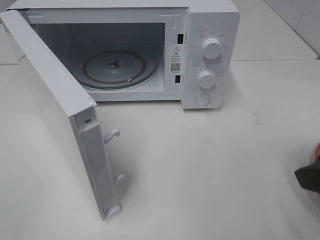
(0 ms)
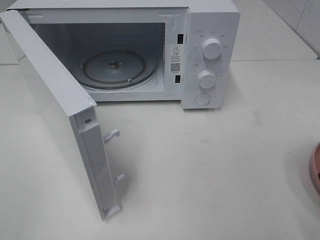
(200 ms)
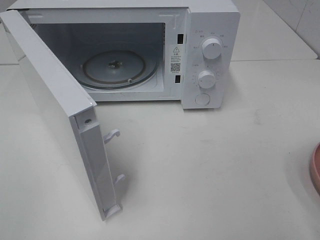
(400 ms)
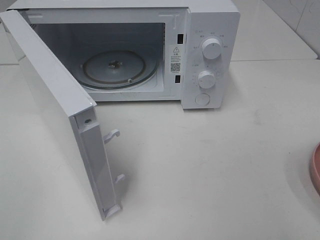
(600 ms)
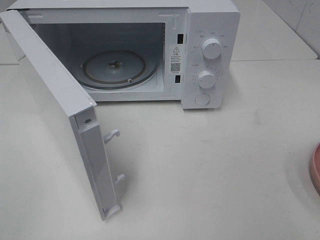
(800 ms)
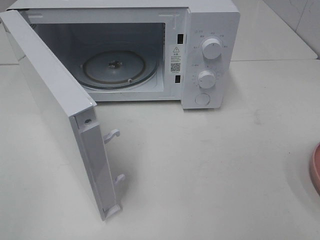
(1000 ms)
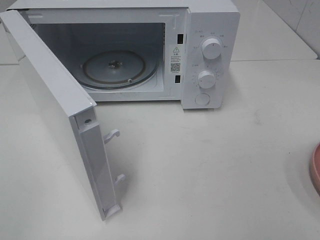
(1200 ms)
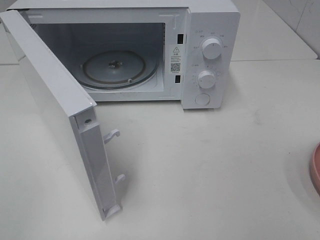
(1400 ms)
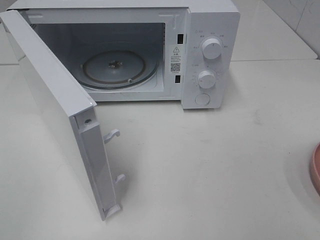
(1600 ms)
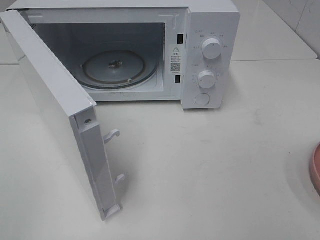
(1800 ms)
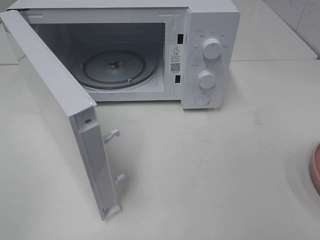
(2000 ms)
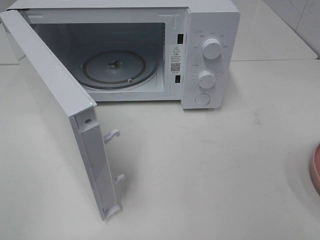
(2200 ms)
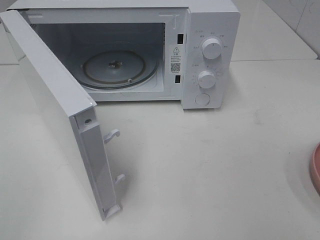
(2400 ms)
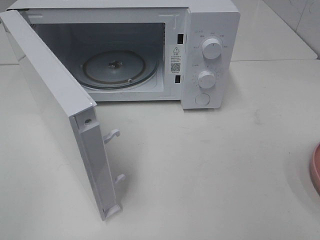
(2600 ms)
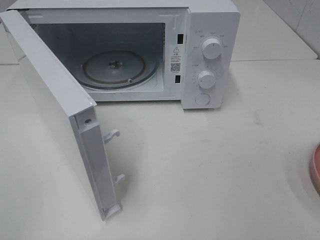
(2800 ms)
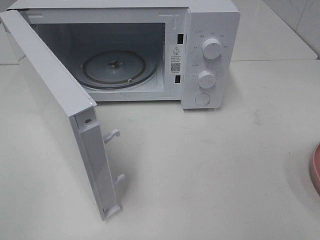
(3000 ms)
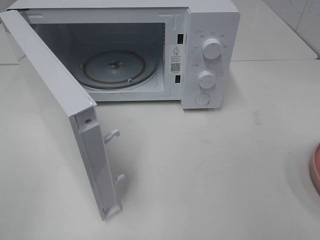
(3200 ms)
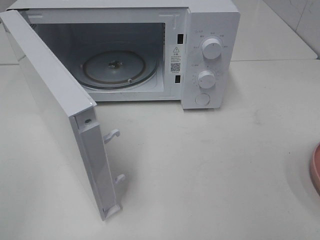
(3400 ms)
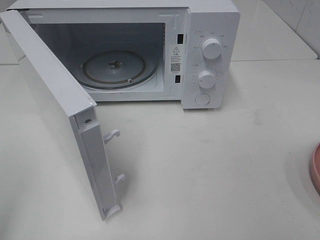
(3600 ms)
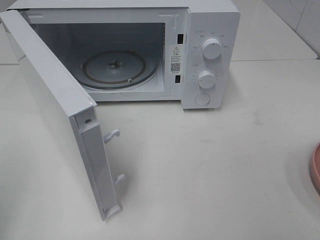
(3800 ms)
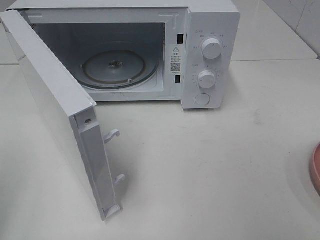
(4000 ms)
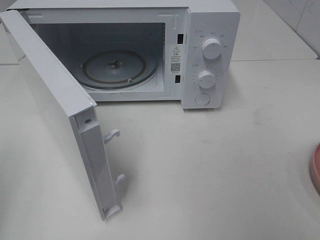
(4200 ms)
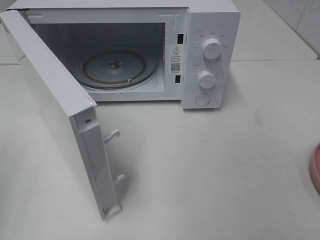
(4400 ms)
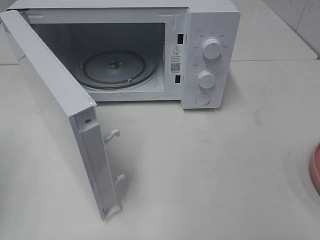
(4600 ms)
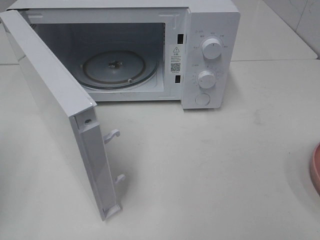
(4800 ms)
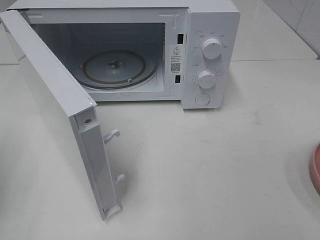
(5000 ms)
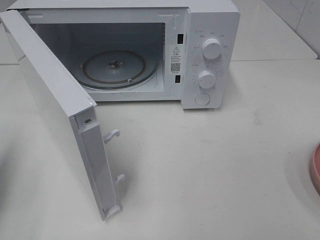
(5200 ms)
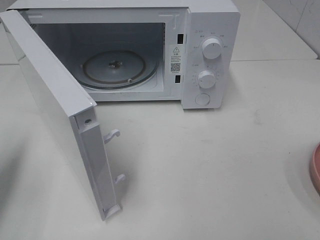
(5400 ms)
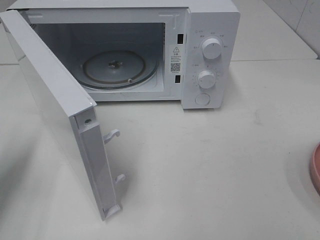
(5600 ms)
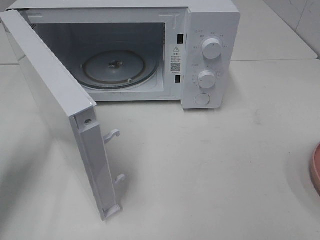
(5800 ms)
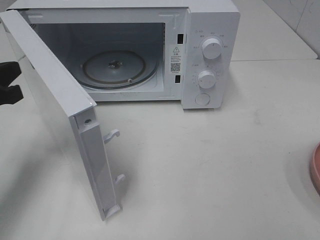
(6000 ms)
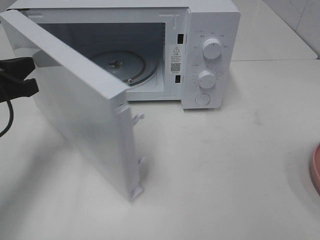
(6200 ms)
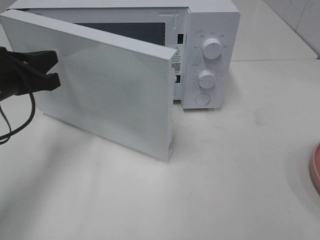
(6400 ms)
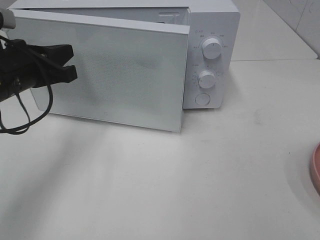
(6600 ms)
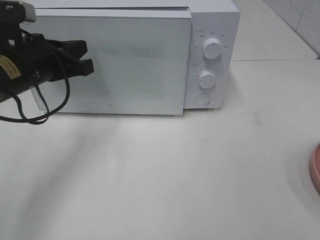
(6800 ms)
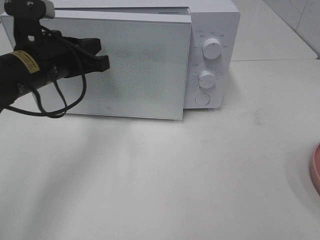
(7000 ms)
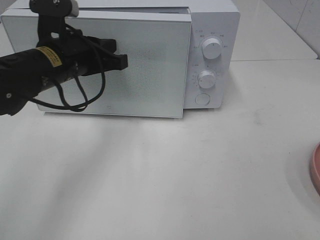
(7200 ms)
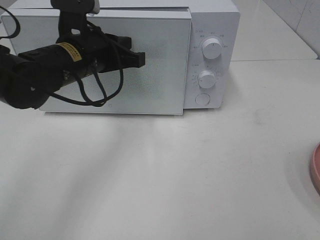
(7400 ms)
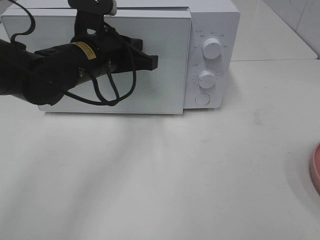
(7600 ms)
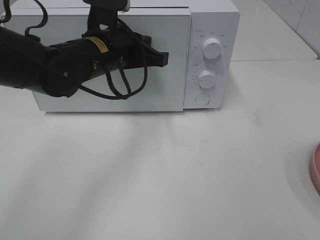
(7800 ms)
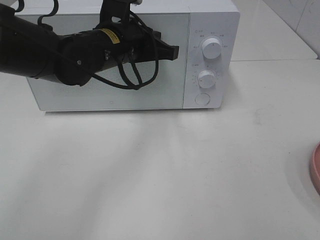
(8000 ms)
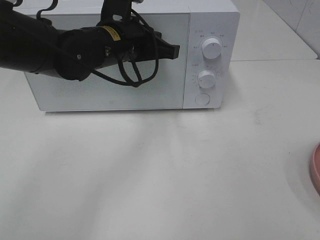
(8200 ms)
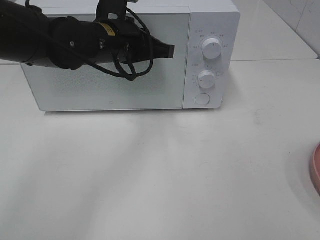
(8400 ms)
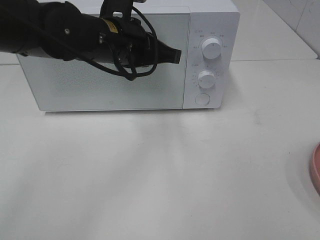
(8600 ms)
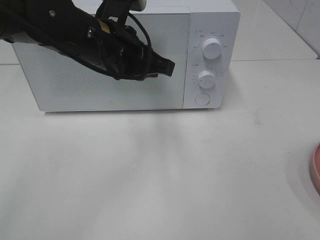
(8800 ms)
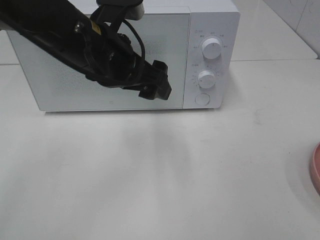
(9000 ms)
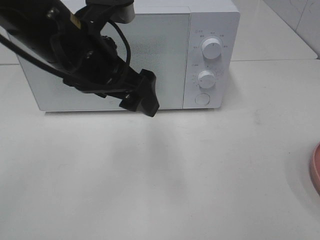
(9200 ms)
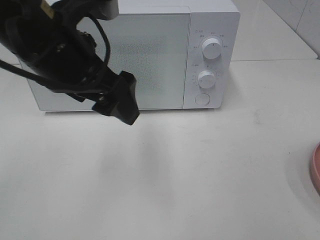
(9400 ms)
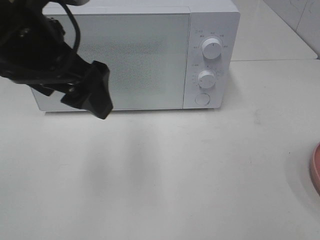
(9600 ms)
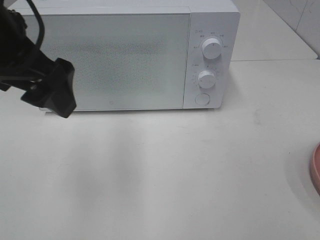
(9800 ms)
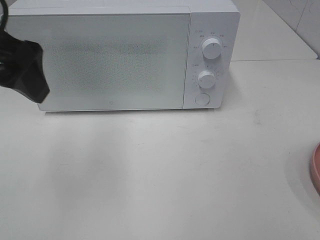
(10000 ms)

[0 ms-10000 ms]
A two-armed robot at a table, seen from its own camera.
Task of the whole recording: Heat the burger.
Step, 0 ms to 9000 ms: Left hand: close the microwave door.
0 ms to 1400 ms: The right gripper goes some 15 cm backward and to the right.
1400 ms to 2800 ms: Both grippers stay put.
4200 ms to 5800 ms: The left gripper heads forward and downward, covering about 15 cm.
5800 ms to 7200 ms: The left gripper heads to the right and forward, covering about 20 cm.
7200 ms to 8600 ms: The left gripper travels to the right by some 5 cm.
8600 ms to 10000 ms: The left gripper is displaced to the left, upward and backward by approximately 20 cm, and opens up.

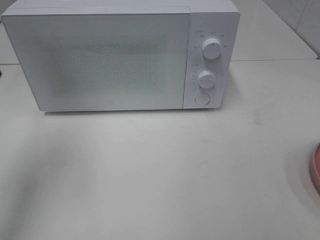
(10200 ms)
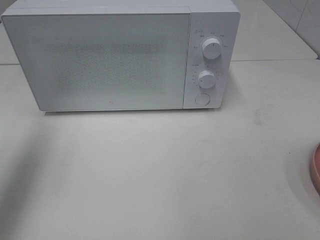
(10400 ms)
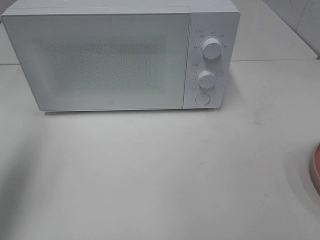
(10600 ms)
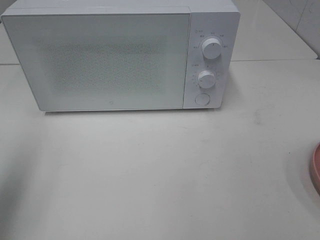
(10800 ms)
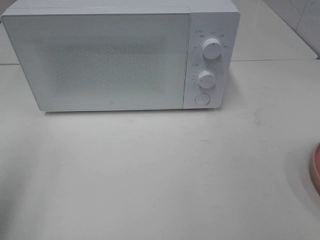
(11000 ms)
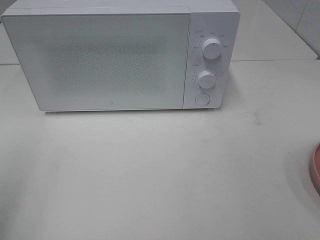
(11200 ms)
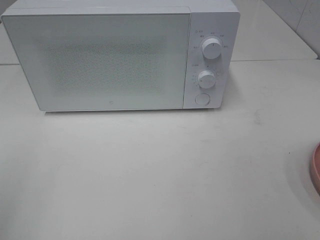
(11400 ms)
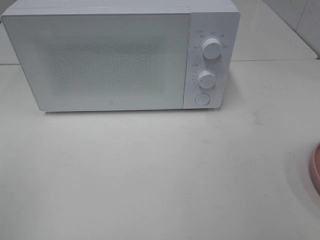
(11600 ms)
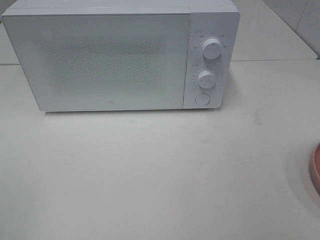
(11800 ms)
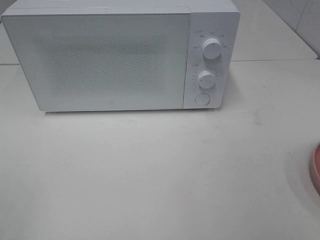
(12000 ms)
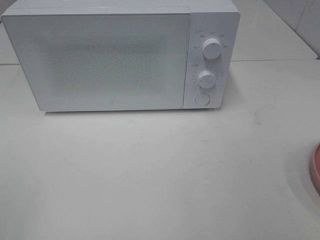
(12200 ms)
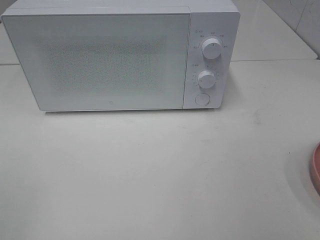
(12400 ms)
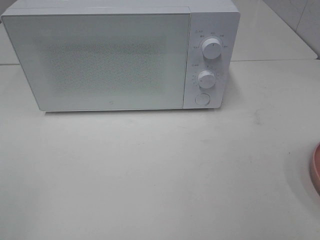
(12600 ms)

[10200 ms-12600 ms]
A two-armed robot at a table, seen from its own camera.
Task of the whole recording: Heat the burger.
10200 ms to 11400 ms: The left gripper travels backward by about 20 cm.

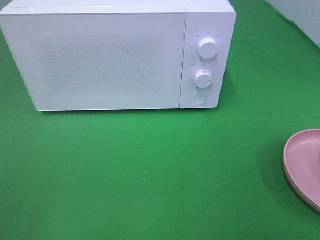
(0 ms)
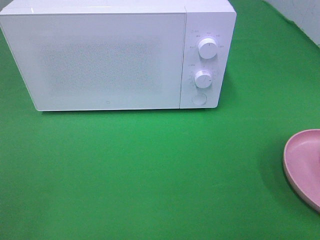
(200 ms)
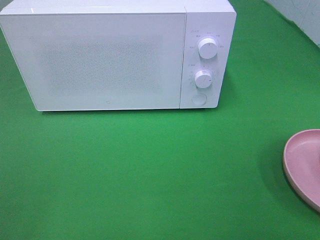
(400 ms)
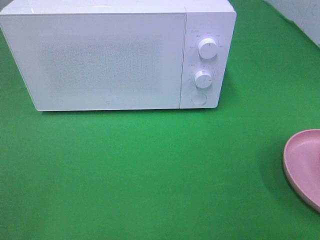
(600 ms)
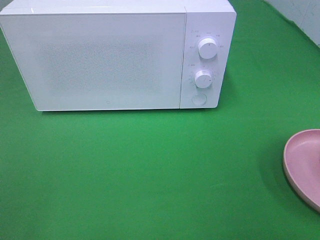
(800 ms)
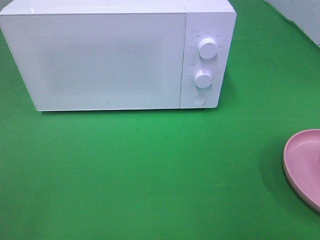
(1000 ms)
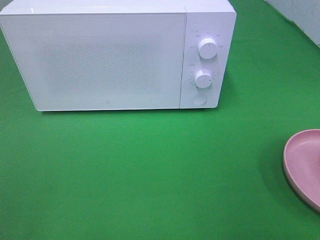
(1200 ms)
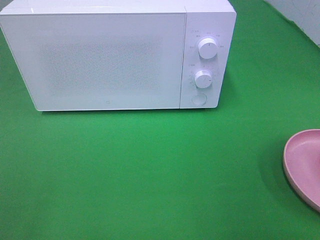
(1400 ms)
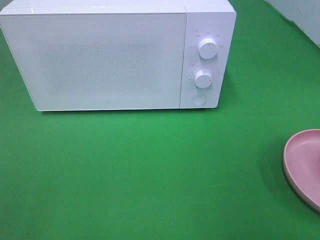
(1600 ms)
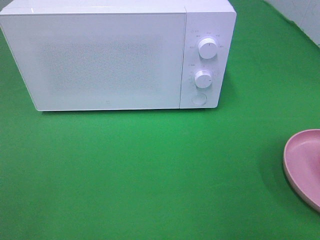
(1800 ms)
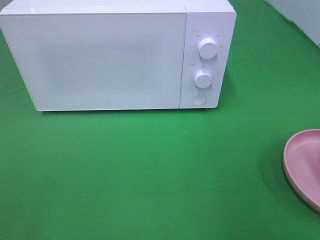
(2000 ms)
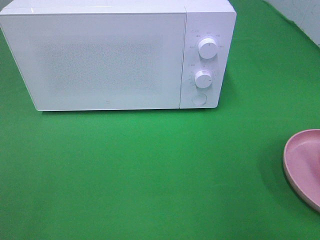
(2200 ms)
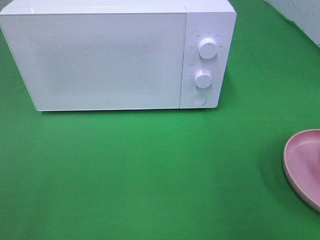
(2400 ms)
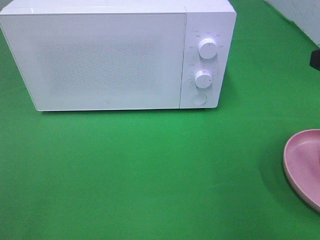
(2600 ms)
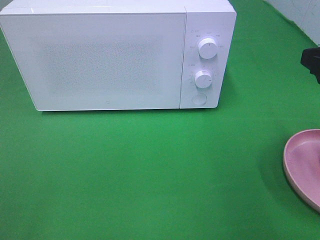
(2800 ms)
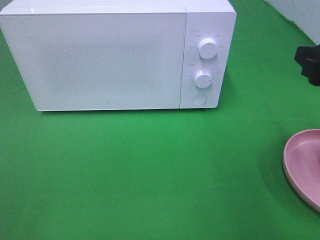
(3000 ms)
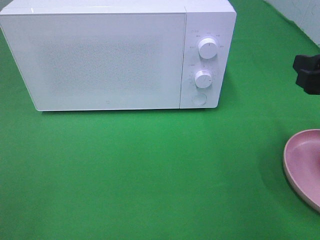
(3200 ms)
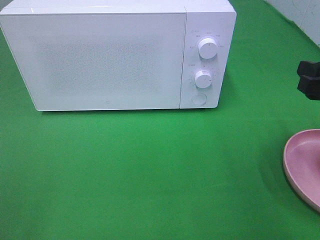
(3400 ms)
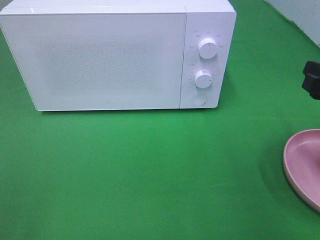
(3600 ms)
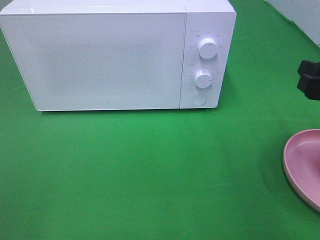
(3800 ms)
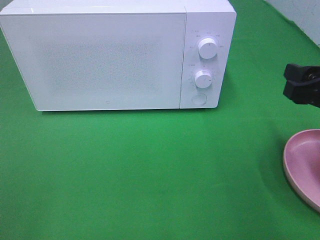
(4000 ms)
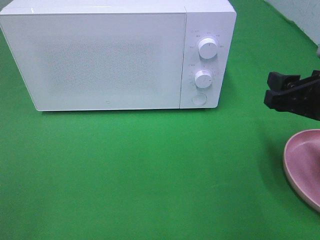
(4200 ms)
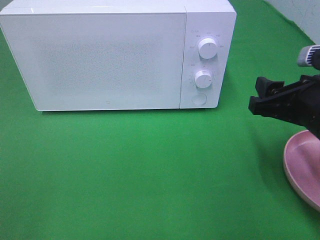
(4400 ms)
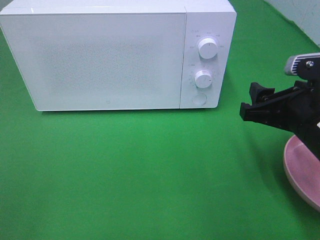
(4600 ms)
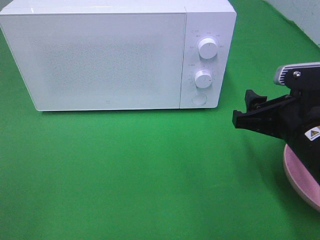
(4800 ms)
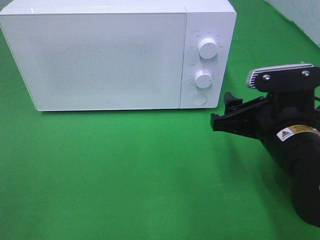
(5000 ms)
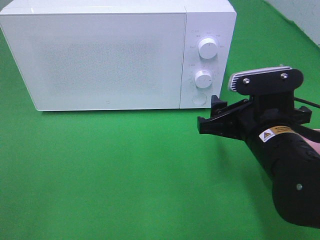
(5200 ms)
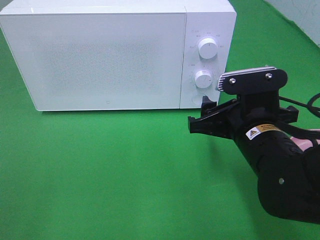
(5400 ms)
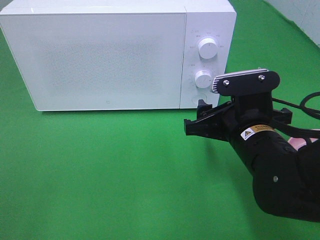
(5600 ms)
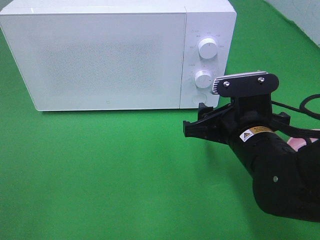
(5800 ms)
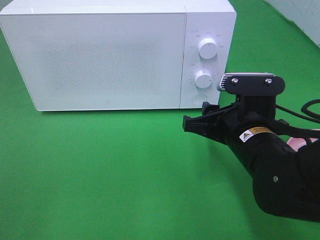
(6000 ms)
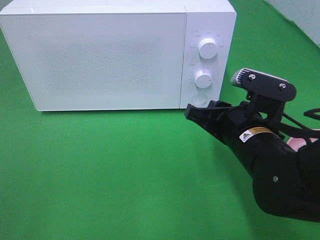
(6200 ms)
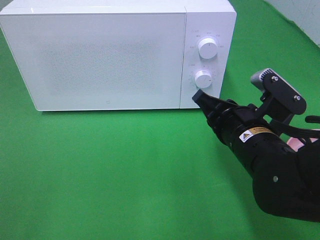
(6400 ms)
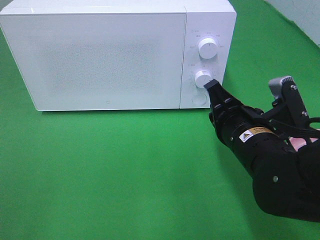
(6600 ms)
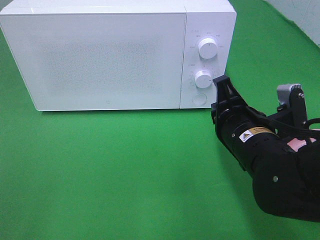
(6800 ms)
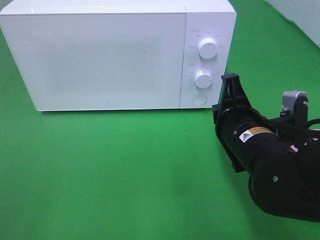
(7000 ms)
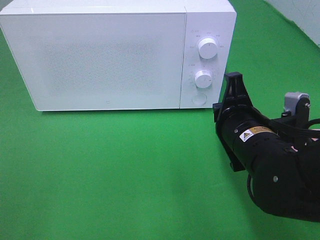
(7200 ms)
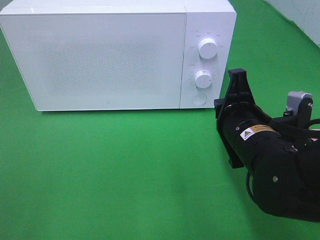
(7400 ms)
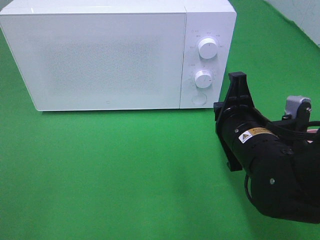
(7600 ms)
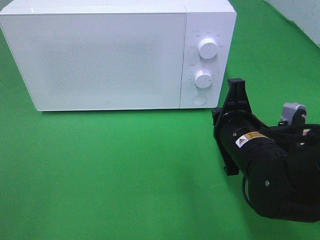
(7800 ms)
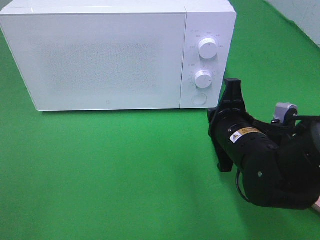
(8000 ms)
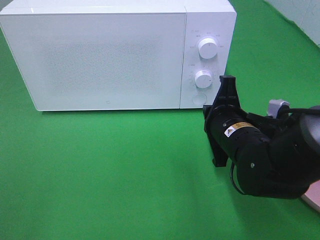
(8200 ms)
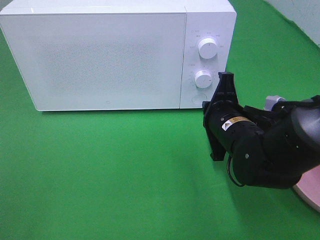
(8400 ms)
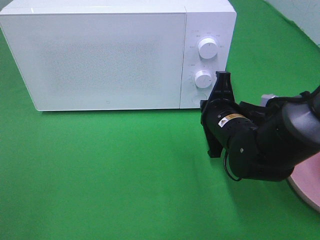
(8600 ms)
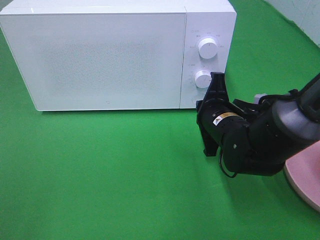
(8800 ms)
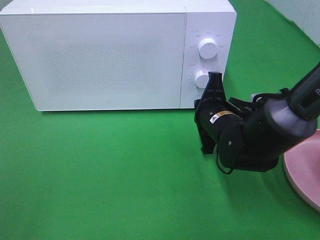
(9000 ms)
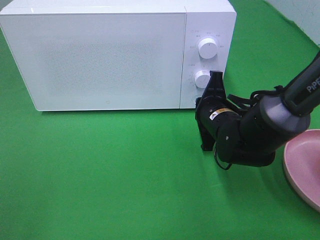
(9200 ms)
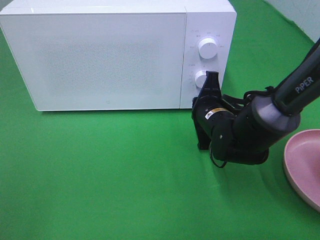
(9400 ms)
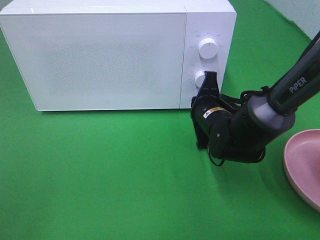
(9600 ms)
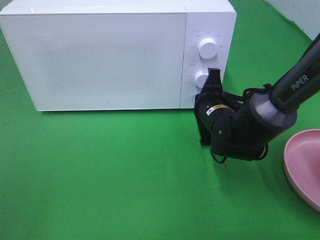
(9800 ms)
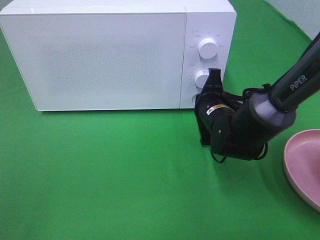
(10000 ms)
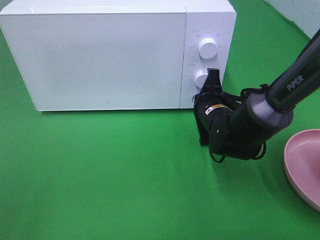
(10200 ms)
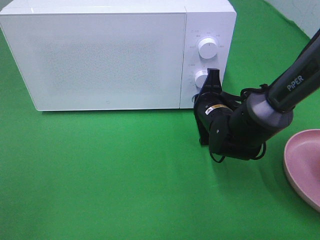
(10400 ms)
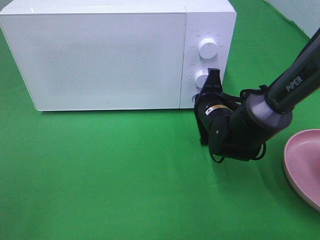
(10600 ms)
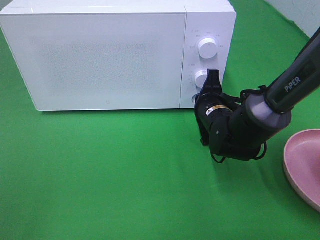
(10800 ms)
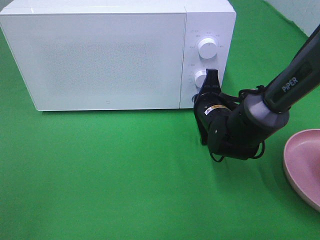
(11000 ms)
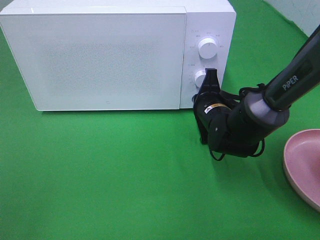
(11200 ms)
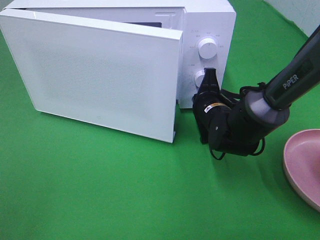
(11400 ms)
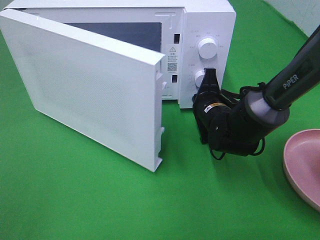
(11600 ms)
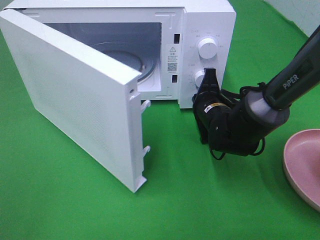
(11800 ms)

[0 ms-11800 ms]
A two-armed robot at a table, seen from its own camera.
Task of the whole recording: Heat the burger.
1400 ms to 3000 ms: The right gripper shifts about 15 cm forward and downward.
3000 ms to 4400 ms: The right gripper travels downward by approximately 5 cm.
4400 ms to 6000 ms: The right gripper shifts some 10 cm to the left and downward.
6000 ms to 7400 ms: The right gripper closes.
7400 ms to 8800 ms: The right gripper goes roughly 5 cm forward.
8800 ms to 10400 ms: The right gripper ends up about 5 cm from where it was.
